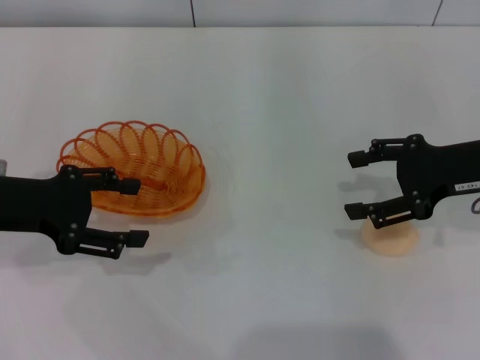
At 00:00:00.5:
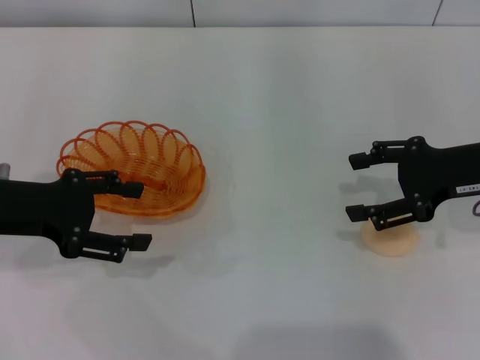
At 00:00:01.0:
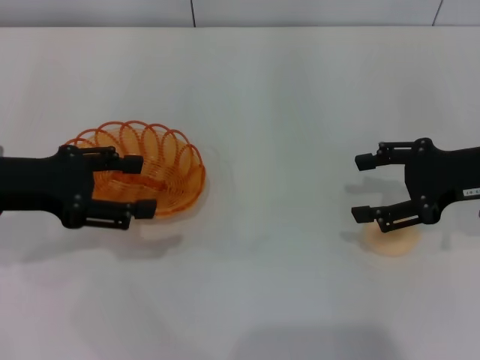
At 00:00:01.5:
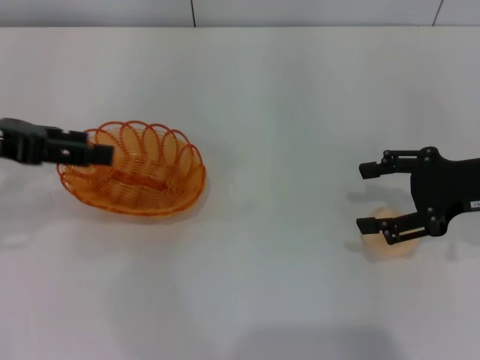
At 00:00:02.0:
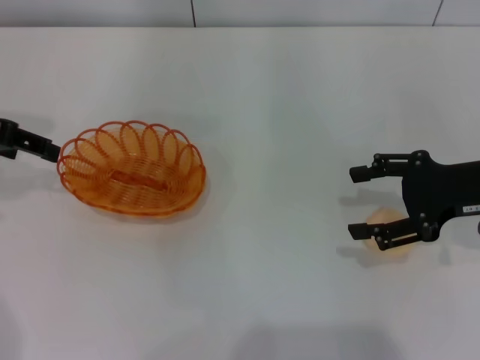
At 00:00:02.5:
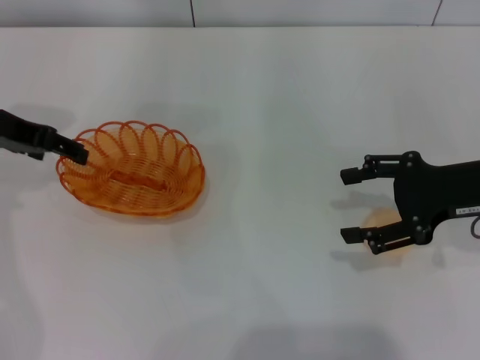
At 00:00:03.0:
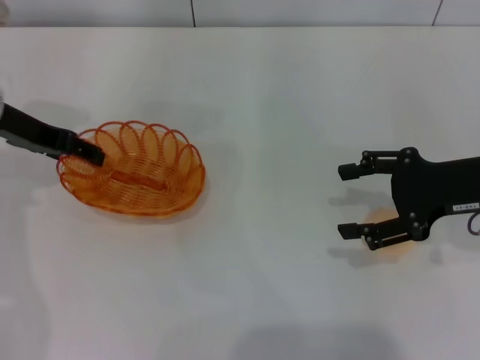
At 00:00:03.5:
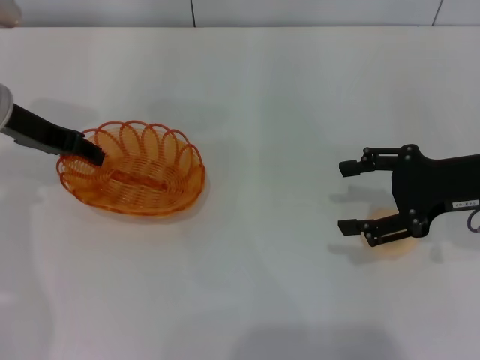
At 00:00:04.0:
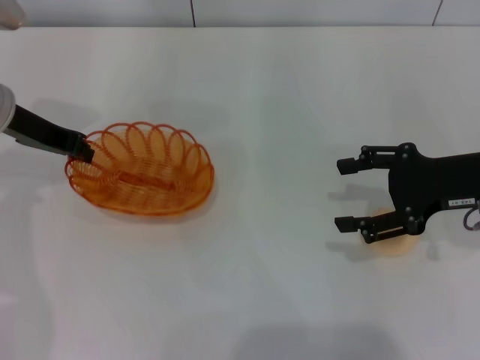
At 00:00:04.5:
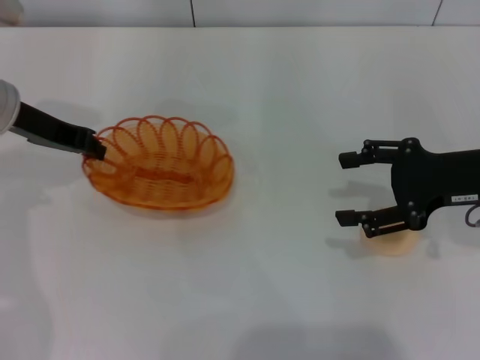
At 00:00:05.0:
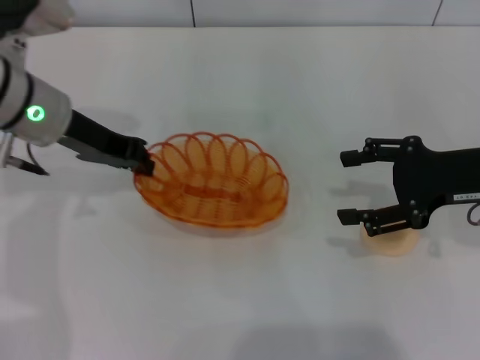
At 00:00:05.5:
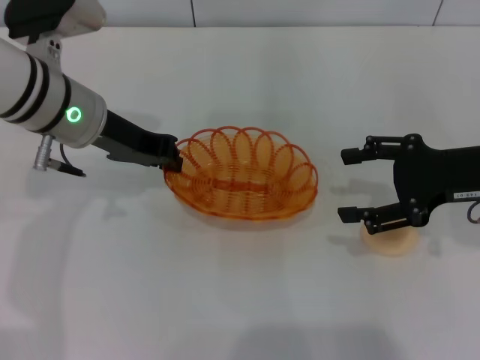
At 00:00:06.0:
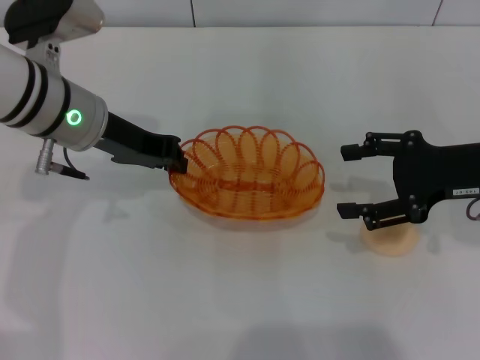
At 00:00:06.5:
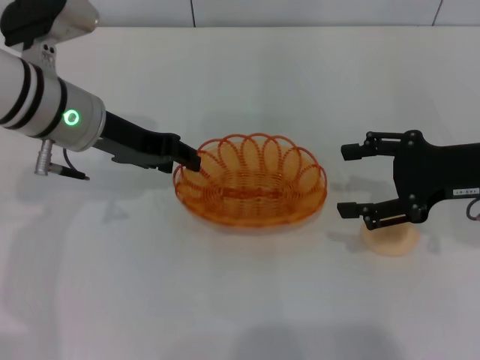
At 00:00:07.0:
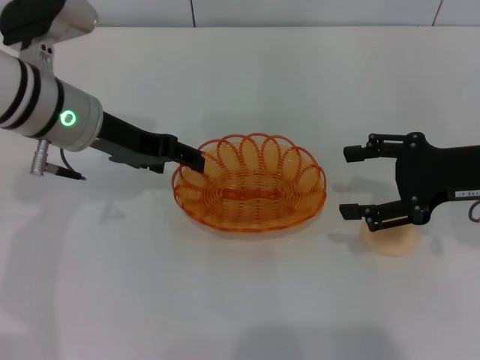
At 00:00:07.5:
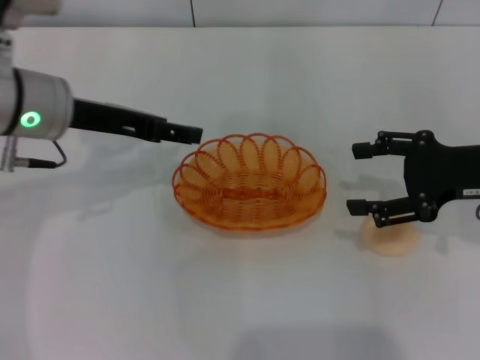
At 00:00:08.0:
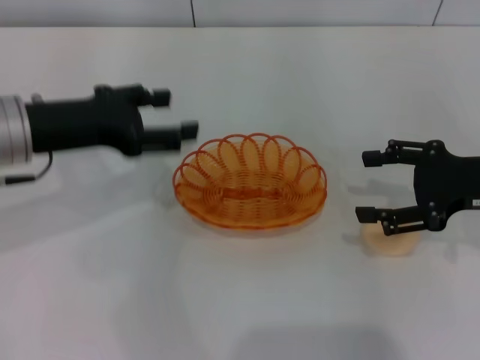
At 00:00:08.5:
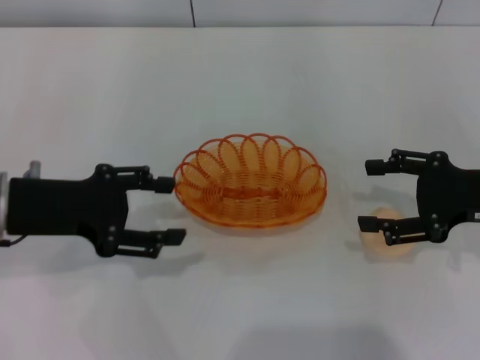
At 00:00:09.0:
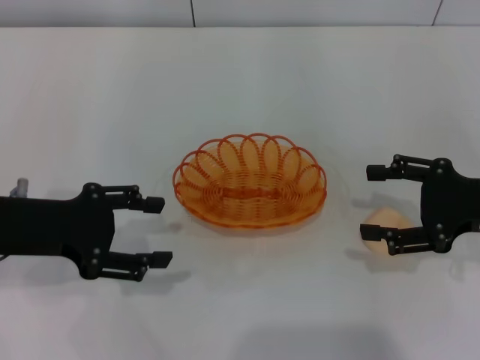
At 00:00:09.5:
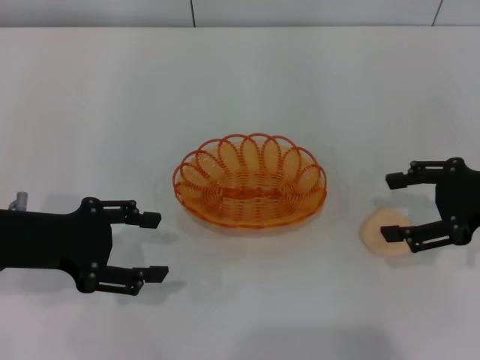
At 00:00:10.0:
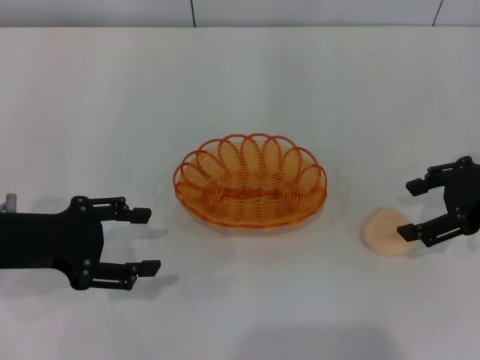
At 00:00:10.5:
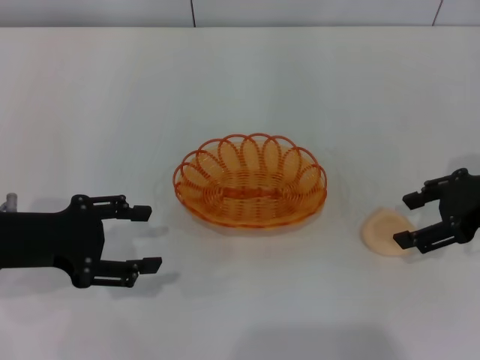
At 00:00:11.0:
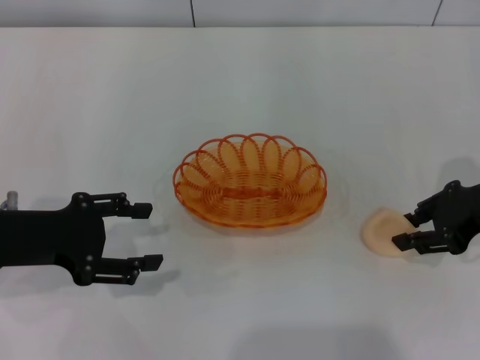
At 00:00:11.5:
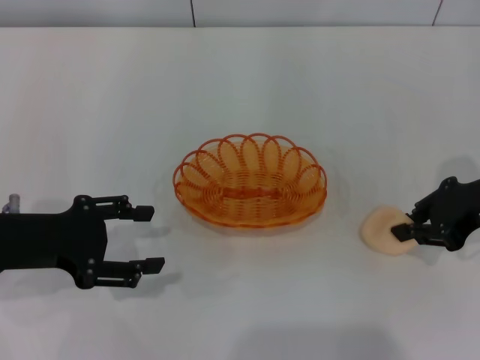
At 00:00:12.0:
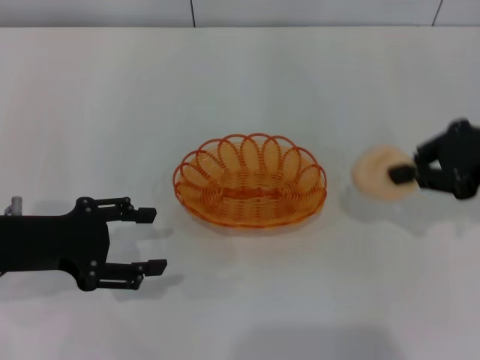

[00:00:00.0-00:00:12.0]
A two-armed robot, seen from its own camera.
Step, 00:00:00.0 to 00:00:04.5: Pick up the basket with the left gripper.
Step, 00:00:05.0 to 00:00:07.5: Place the basket in the center of view with the left gripper.
00:00:00.0 to 00:00:02.0: The left gripper heads upward and forward, covering about 10 cm.
00:00:02.0 to 00:00:04.0: The left gripper goes roughly 10 cm downward and to the right, and closes up.
00:00:04.0 to 00:00:06.0: The left gripper goes some 10 cm to the right.
00:00:06.0 to 00:00:08.0: The left gripper travels to the left by some 5 cm, and opens up.
00:00:08.0 to 00:00:10.0: The left gripper shifts roughly 5 cm backward.
00:00:10.0 to 00:00:12.0: The right gripper closes its fingers.

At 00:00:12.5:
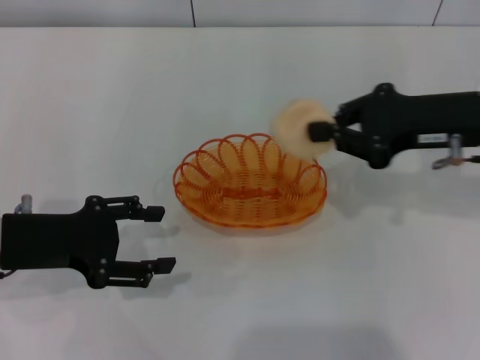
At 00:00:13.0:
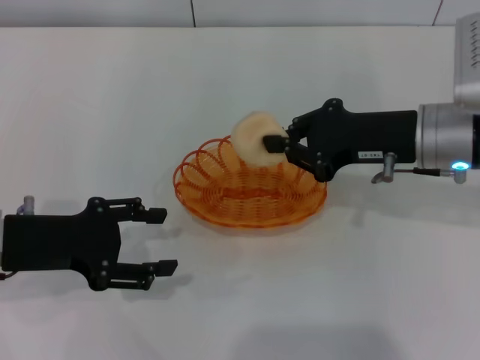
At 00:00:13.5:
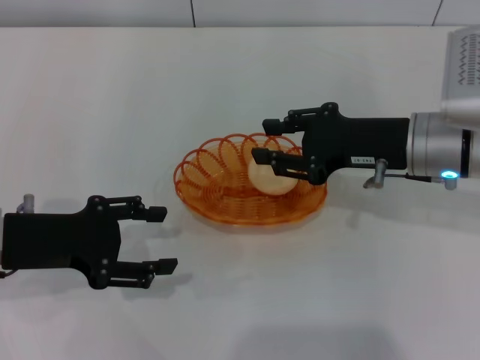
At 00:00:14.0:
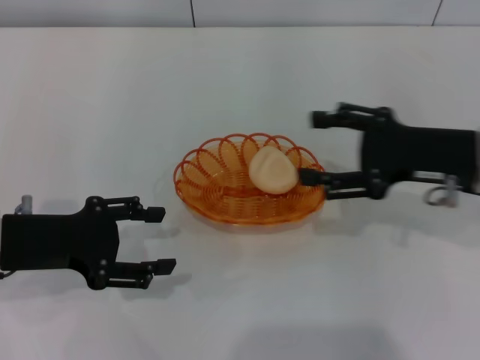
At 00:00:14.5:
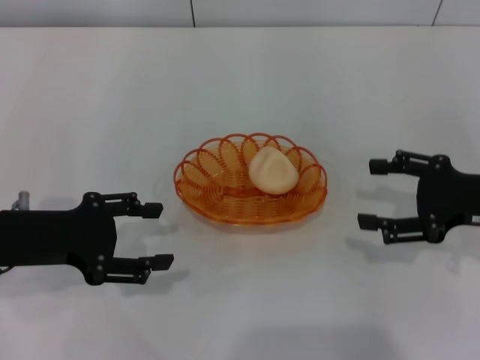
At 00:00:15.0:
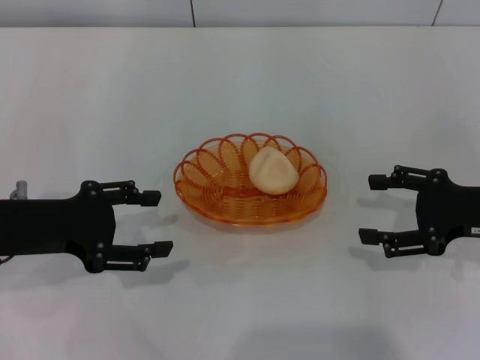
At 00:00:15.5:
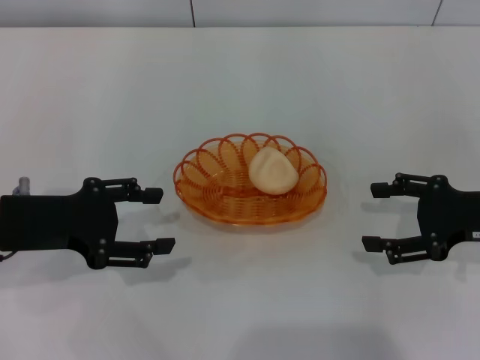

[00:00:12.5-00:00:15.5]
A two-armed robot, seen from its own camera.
Step, 00:00:12.5 to 00:00:14.0: Place the egg yolk pastry into the basket with the right gripper.
00:00:12.5 to 00:00:14.0: The right gripper opens its fingers.
00:00:14.0 to 00:00:15.5: The right gripper travels to the right by about 5 cm.
